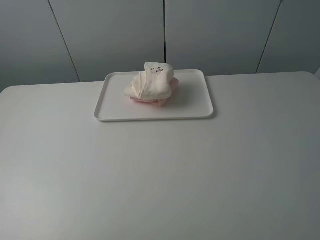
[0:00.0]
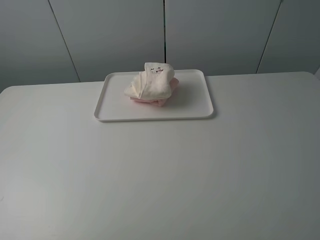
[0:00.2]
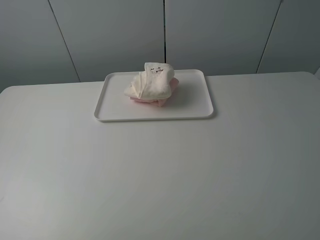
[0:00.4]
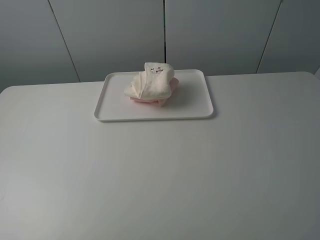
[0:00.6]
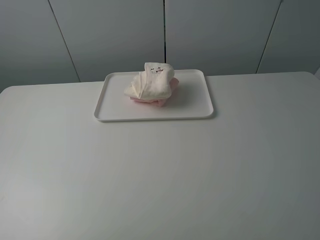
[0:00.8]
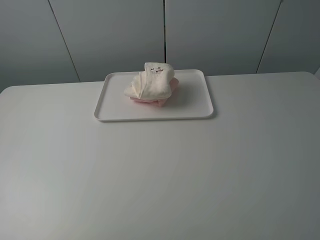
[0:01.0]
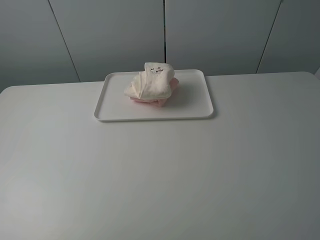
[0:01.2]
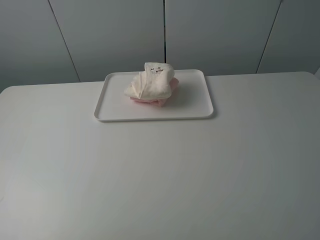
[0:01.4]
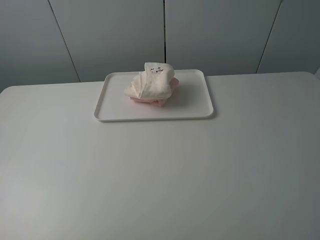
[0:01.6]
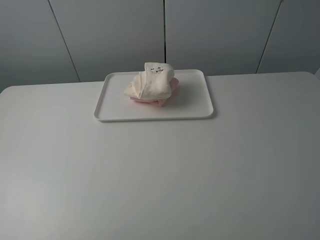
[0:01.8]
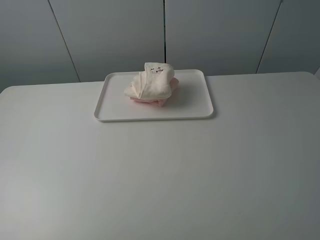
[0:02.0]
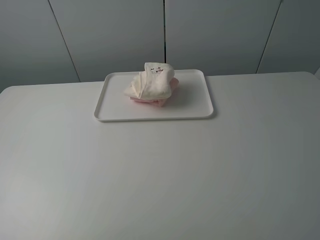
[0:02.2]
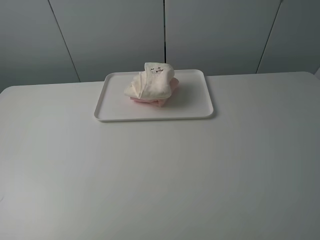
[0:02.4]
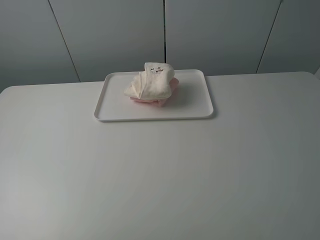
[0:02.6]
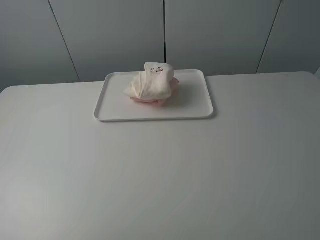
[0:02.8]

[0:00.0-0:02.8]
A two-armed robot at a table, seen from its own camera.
Task of the whole recording: fold one of the towels by two grippers and place it on the tray,then fold another towel by two grippers and place it on the folded towel.
0.0 to 2.8 s: Neither gripper changes place.

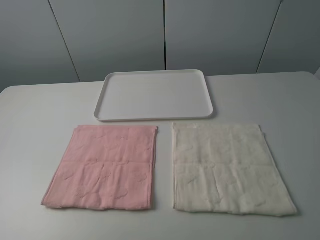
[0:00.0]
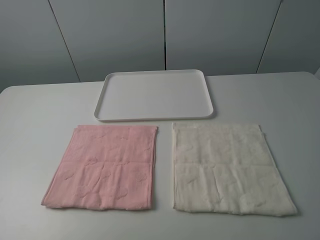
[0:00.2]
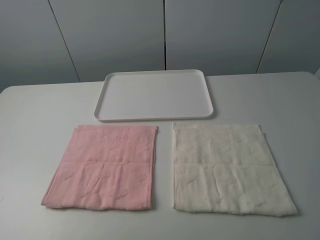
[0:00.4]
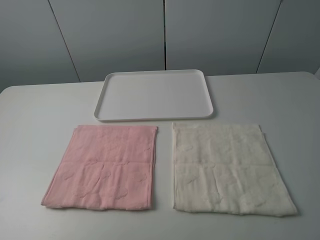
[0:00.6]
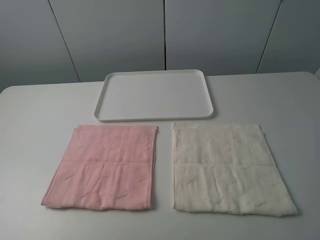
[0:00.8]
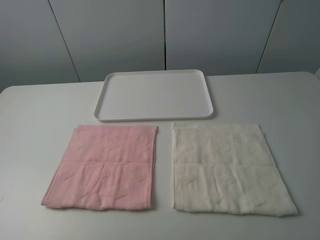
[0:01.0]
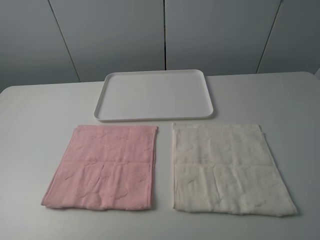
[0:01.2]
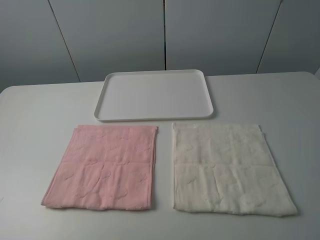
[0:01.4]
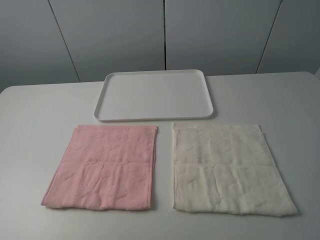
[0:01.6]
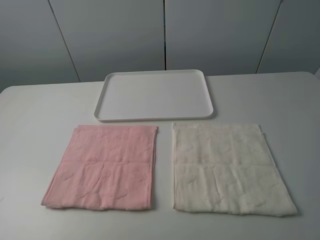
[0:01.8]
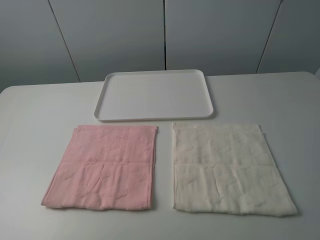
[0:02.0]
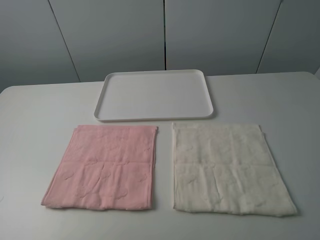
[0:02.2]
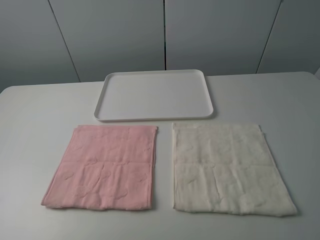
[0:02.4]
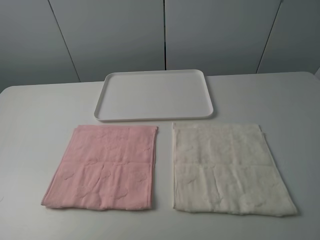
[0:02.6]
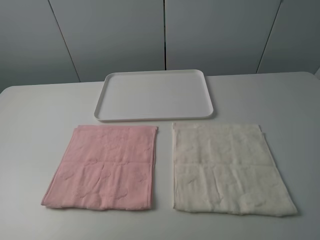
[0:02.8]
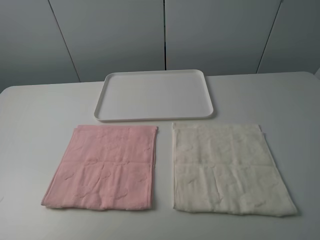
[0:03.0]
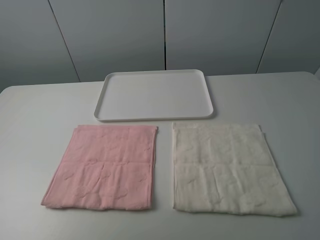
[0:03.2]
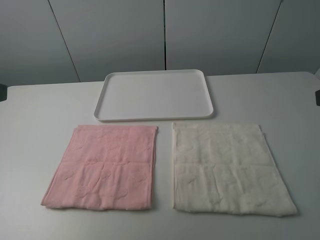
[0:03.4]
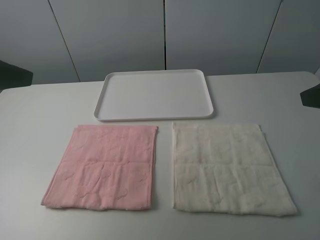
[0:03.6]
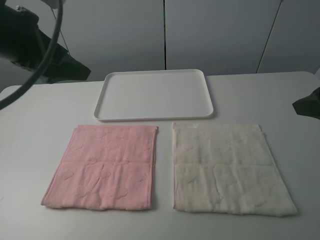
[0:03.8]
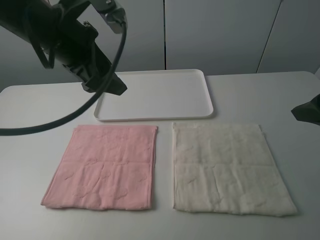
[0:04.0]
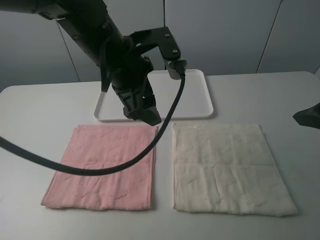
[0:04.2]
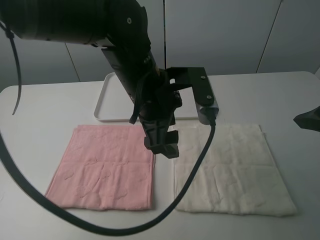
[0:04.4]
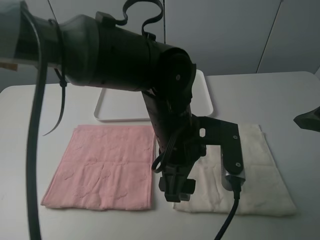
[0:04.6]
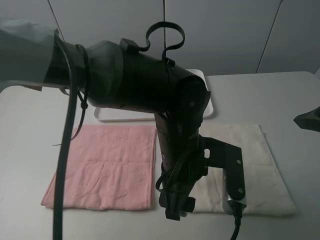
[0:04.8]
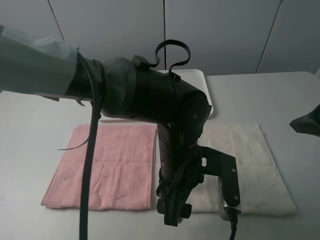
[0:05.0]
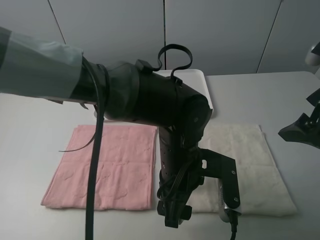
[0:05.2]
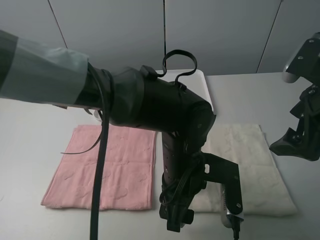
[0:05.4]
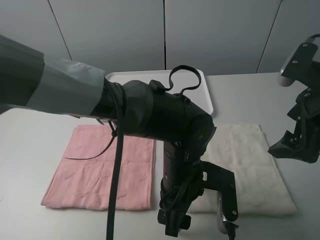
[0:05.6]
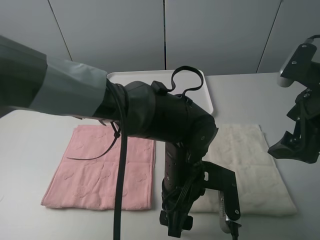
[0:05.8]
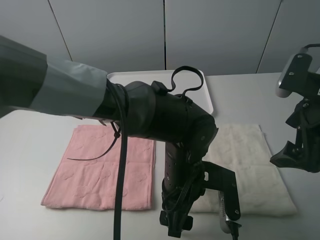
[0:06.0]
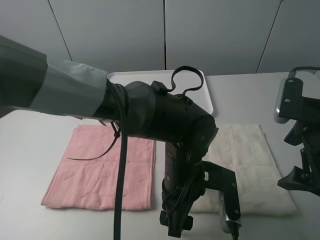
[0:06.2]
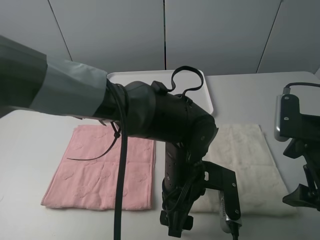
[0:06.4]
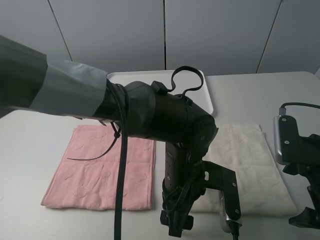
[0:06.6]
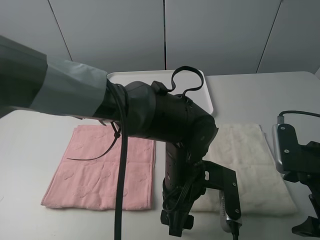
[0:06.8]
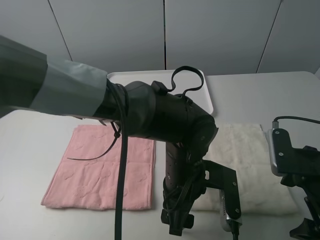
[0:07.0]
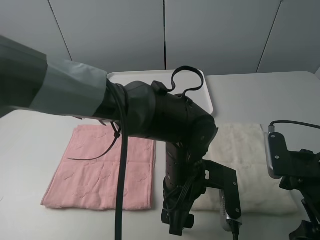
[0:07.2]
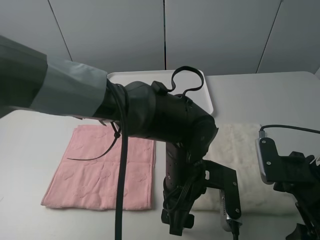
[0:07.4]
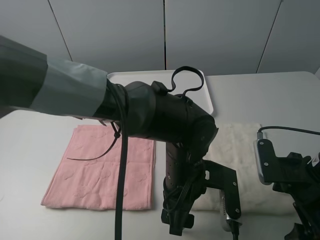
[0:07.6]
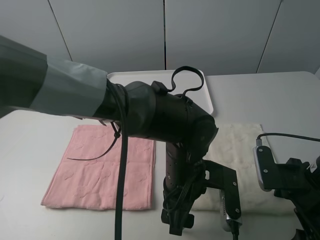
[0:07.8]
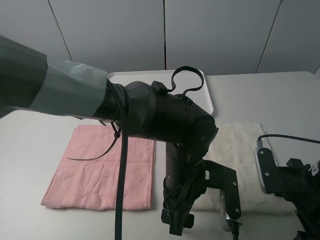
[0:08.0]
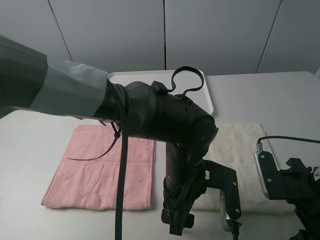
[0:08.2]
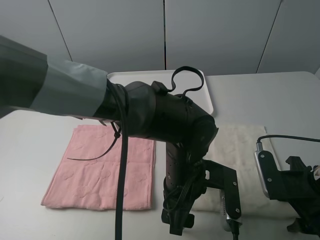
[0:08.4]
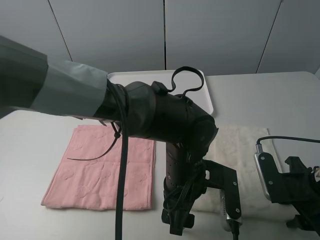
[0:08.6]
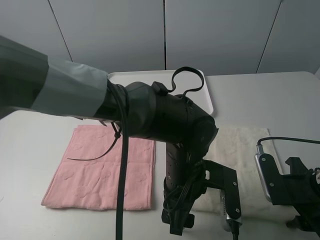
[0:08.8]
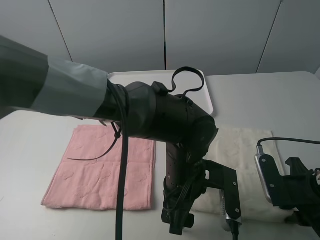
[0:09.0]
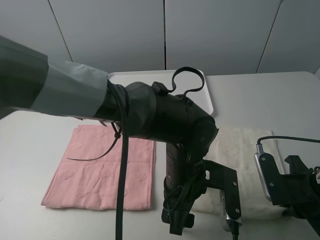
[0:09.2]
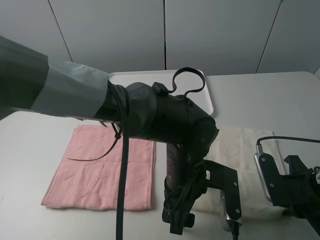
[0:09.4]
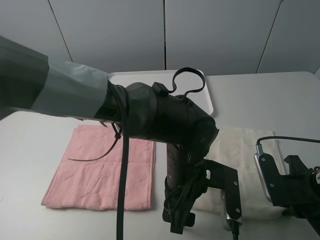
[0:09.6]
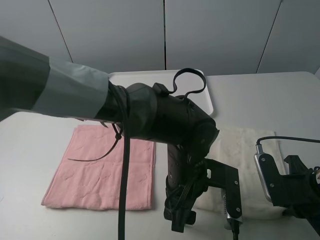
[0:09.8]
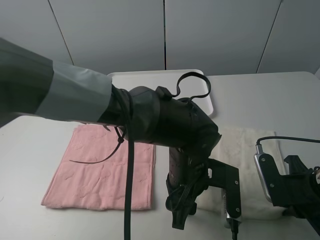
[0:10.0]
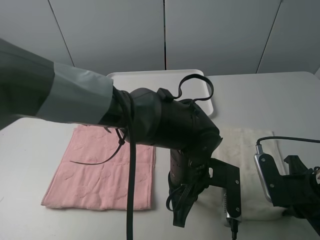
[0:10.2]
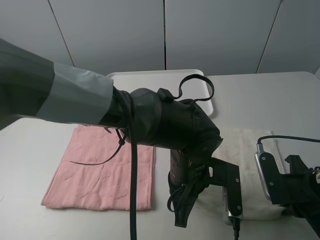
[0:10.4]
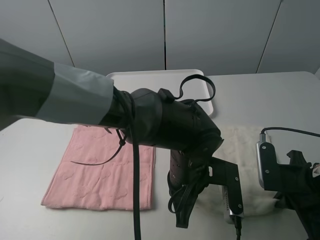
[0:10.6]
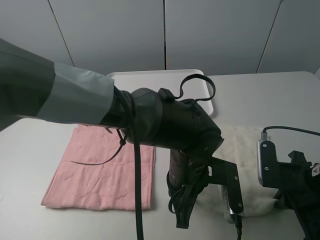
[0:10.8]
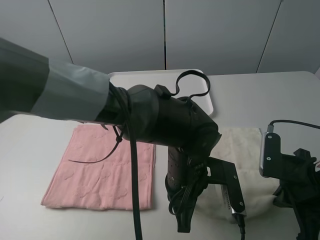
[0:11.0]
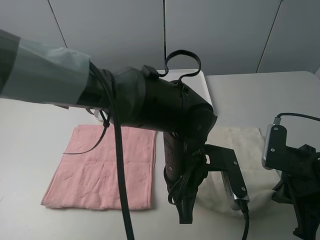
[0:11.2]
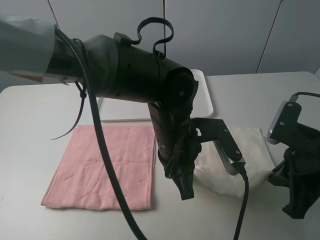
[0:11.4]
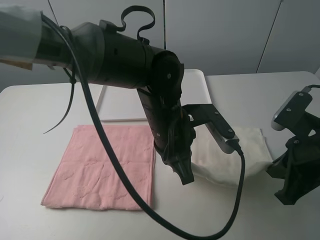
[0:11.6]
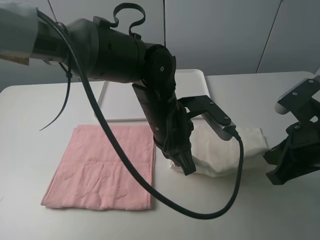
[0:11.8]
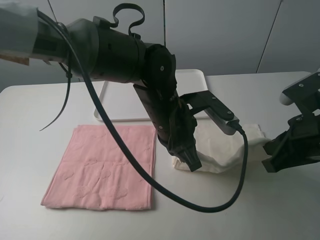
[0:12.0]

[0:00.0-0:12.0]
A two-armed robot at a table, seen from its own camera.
Task of the whole recording: fold one of the towels by two grippers and place it on the tray,then fold another towel by two grippers and place it on the folded towel.
Step, 0.0 to 10.2 s: Grasp the white towel with the left gripper.
0.0 to 1.6 s: Neither gripper changes place.
3.0 to 4.4 s: The right gripper travels forward by about 15 cm; the left gripper goes roughly 35 cm to the right and forward.
4.4 to 6.0 s: The left gripper heads downward and backward, covering some 15 cm. Meanwhile the right gripper moves downward, some 5 cm.
6.0 to 7.6 s: The right gripper moves downward, approximately 10 cm.
7.6 to 9.0 s: The right gripper closes.
9.0 to 10.4 s: The left gripper closes up.
10.4 to 12.0 s: The right gripper is displaced upward by approximately 10 cm, while the left gripper heads upward and forward, covering roughly 10 cm.

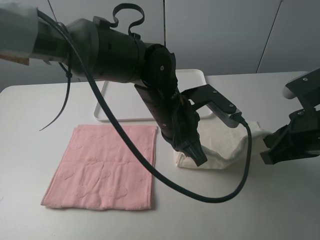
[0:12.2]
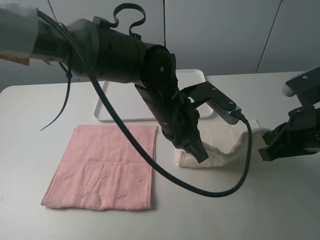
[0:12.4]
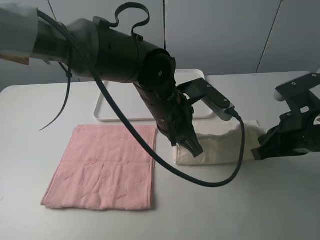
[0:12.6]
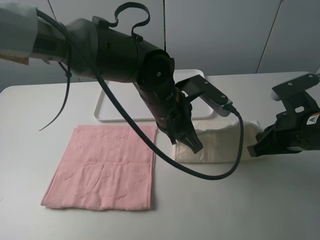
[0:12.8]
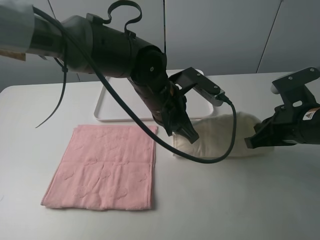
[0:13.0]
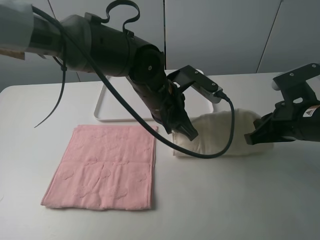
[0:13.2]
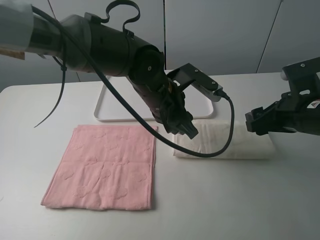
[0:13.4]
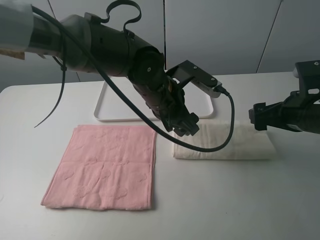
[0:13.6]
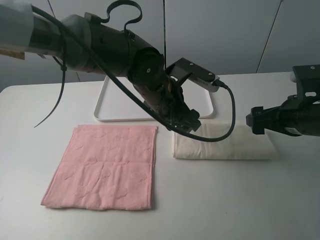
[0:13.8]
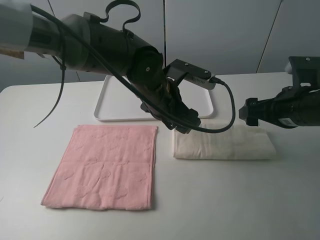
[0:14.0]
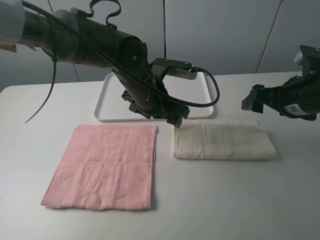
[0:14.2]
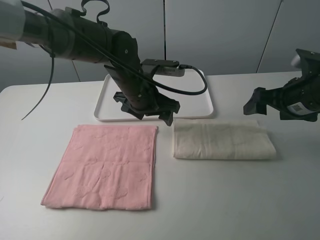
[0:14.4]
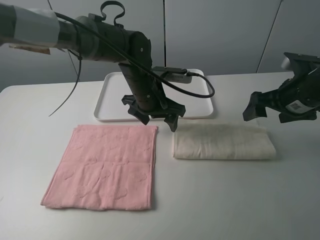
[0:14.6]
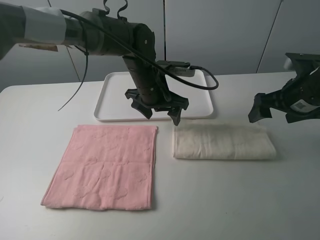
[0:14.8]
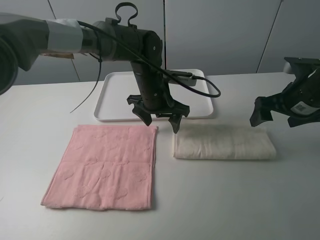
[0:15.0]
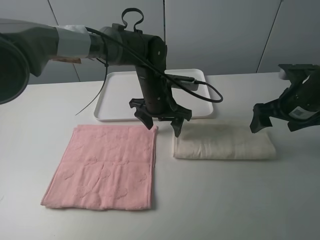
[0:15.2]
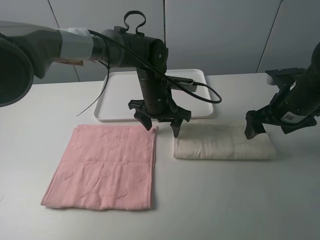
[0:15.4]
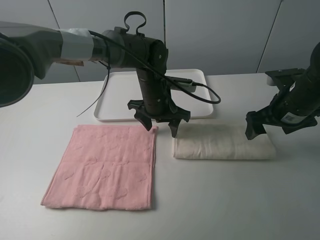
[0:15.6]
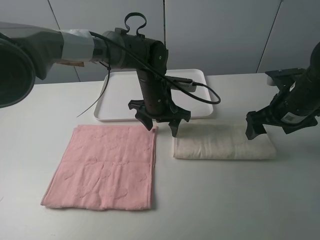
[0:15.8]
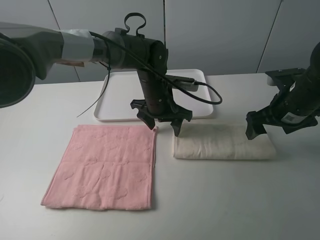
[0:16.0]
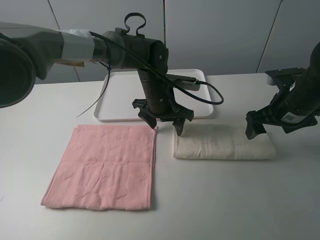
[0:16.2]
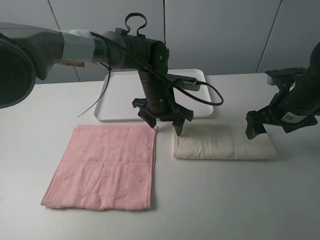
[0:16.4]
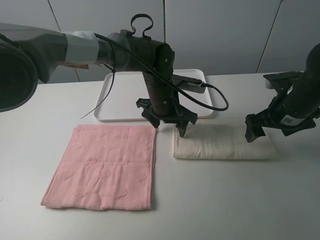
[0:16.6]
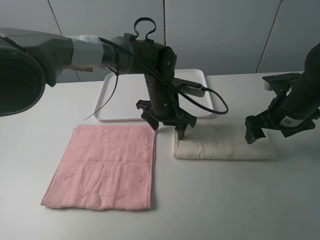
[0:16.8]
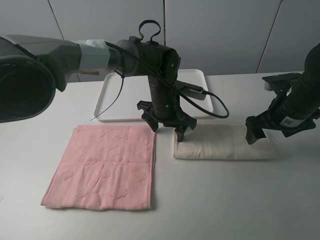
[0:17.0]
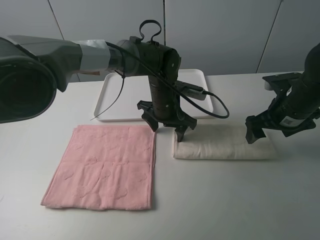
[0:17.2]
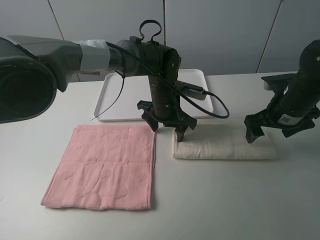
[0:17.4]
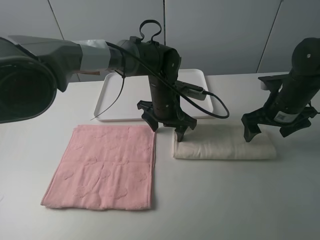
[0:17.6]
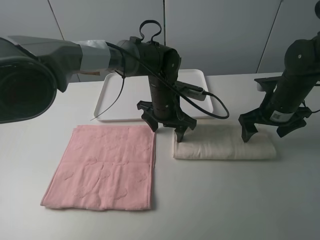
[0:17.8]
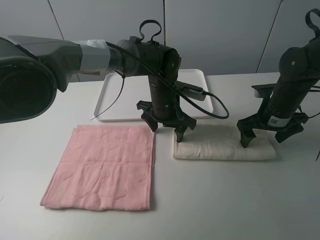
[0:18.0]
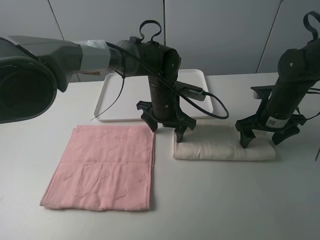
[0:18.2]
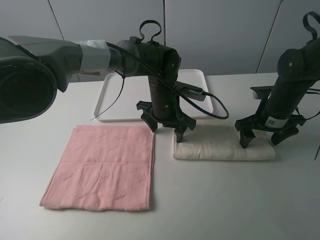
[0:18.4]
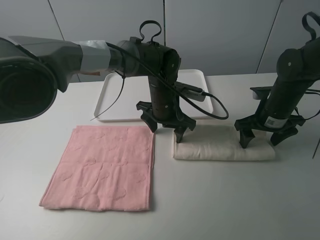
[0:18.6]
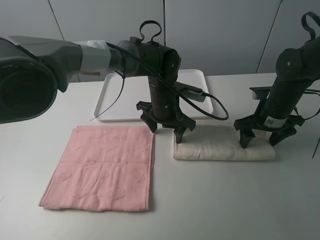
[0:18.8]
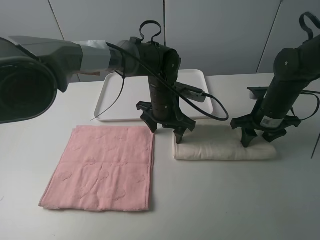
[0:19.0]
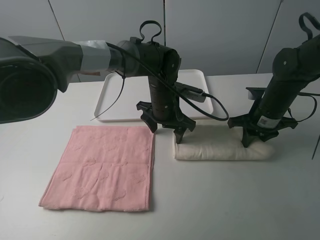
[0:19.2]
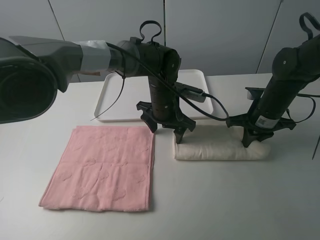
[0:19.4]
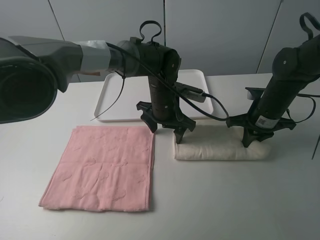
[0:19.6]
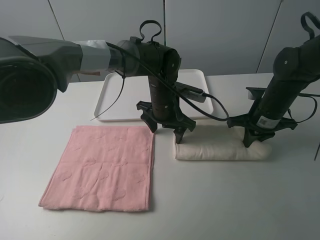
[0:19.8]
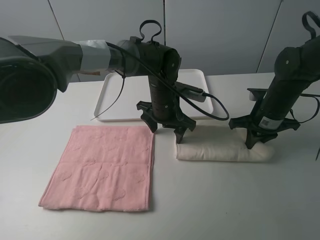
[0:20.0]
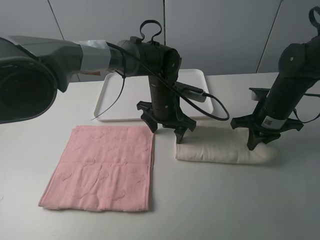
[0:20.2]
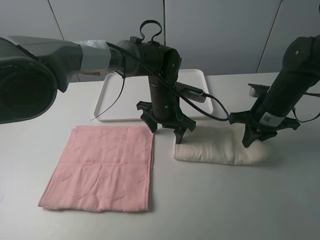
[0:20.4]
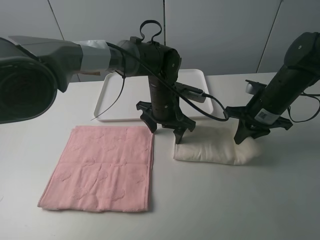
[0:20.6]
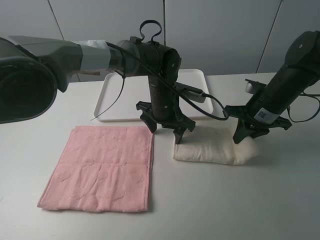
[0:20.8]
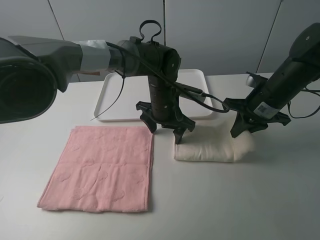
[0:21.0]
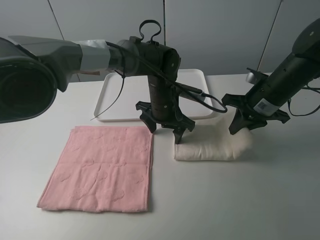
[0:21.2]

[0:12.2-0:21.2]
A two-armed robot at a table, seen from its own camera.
Task of the whole recording: fold one of the towels by two grippers and place it on the tray,then fold another towel by two grippers and place it on the folded towel.
Step, 13.8 to 17.0 s: Press the white towel with the left gripper.
Step, 17.2 to 19.4 s: Grasp the white towel with the right gripper.
12.2 to 13.8 s: The right gripper moves approximately 5 cm, and opens. The left gripper opens its fingers.
13.8 to 15.2 s: The two grippers go approximately 5 cm forward.
15.2 to 16.6 s: There are only small adjustments of the grippers.
16.6 to 18.2 s: The right gripper moves some 5 cm.
18.2 to 19.8 s: The right gripper closes.
19.8 to 21.2 s: The right gripper shifts about 5 cm upward.
